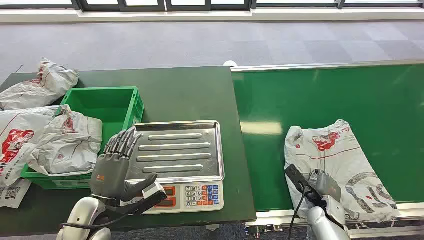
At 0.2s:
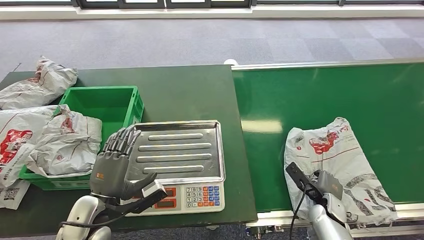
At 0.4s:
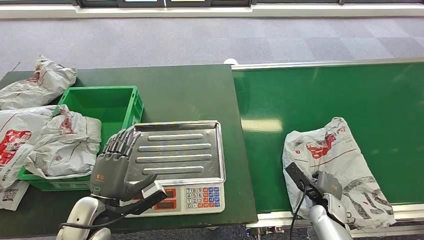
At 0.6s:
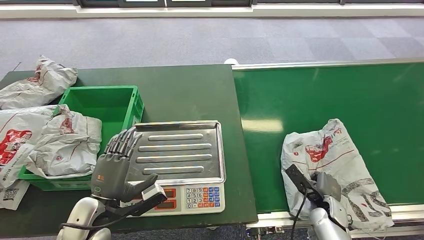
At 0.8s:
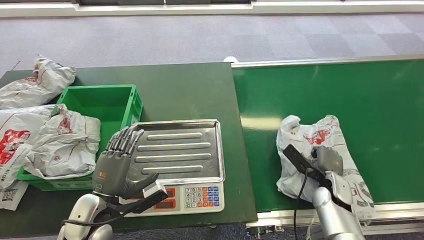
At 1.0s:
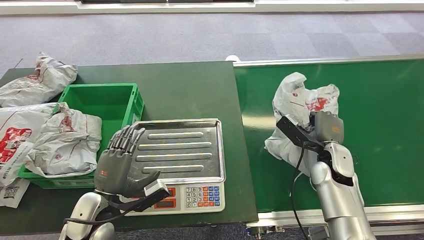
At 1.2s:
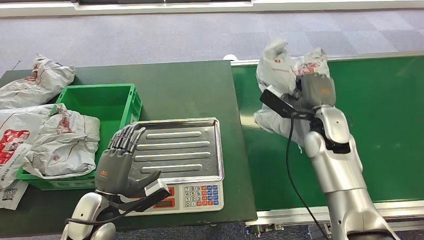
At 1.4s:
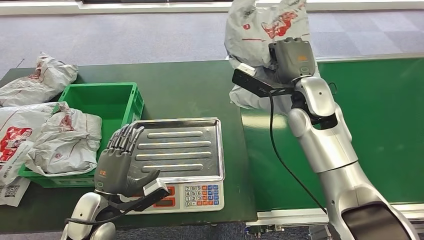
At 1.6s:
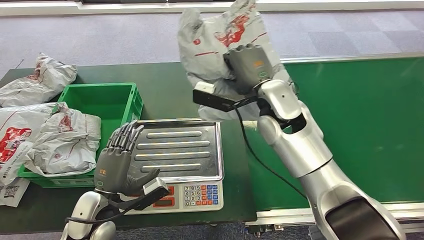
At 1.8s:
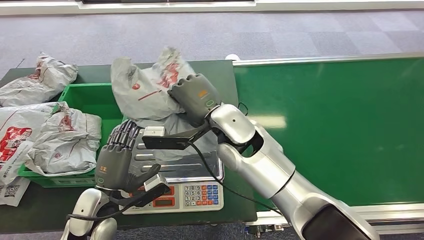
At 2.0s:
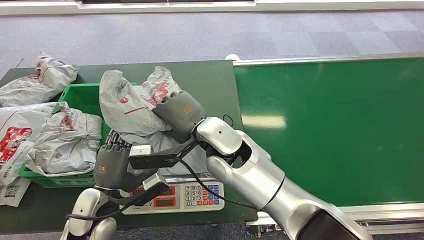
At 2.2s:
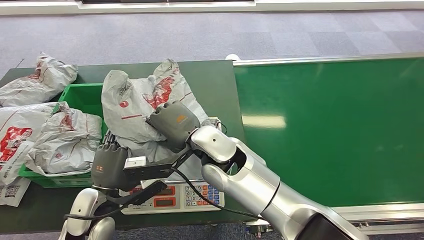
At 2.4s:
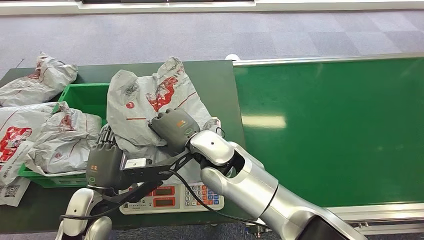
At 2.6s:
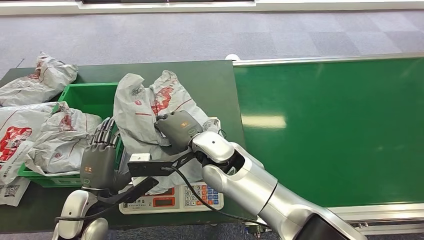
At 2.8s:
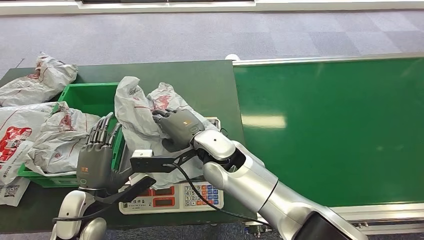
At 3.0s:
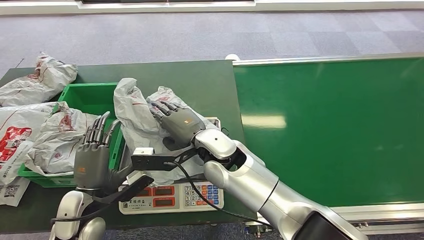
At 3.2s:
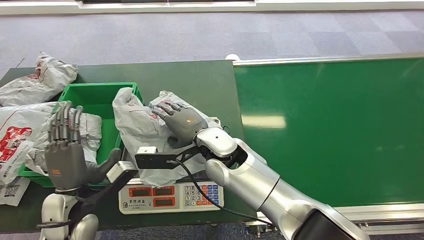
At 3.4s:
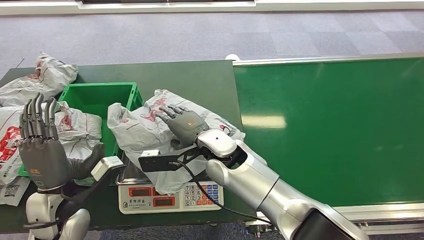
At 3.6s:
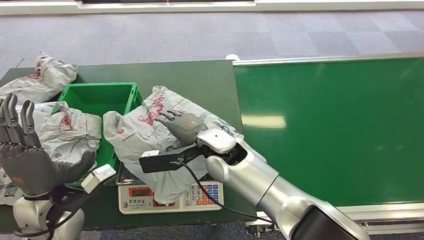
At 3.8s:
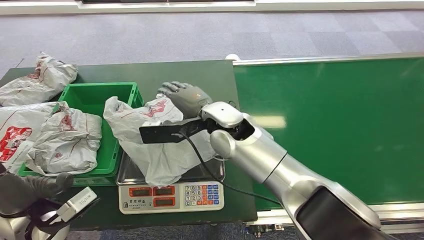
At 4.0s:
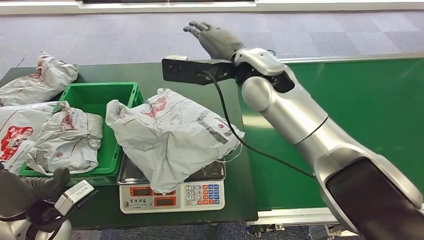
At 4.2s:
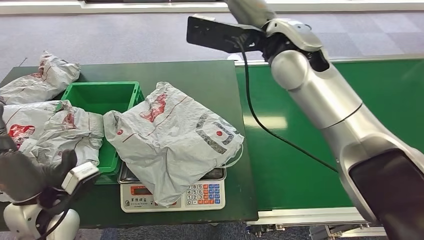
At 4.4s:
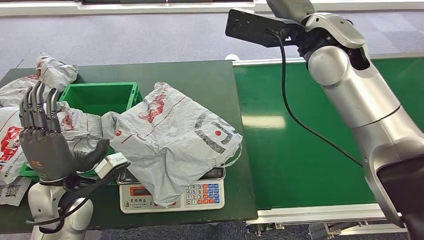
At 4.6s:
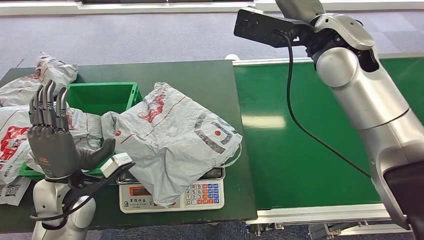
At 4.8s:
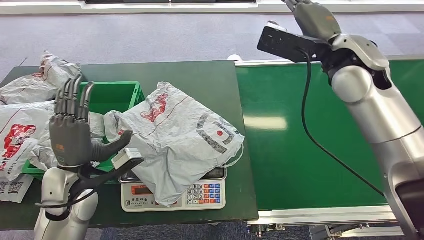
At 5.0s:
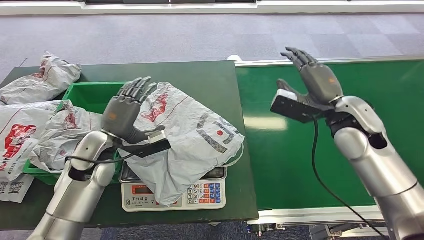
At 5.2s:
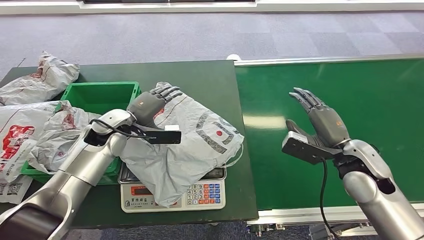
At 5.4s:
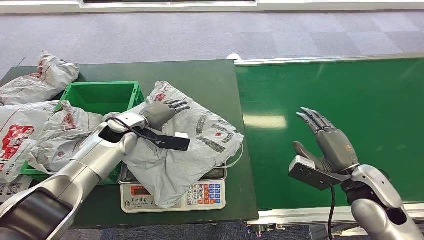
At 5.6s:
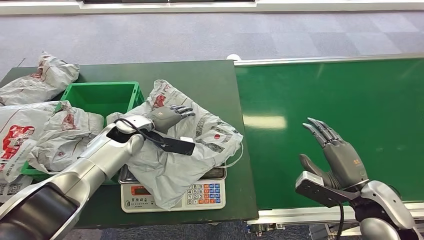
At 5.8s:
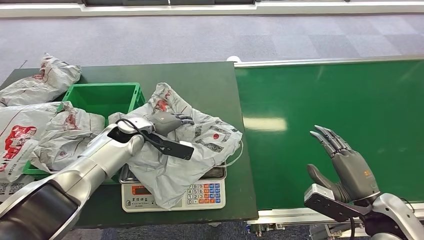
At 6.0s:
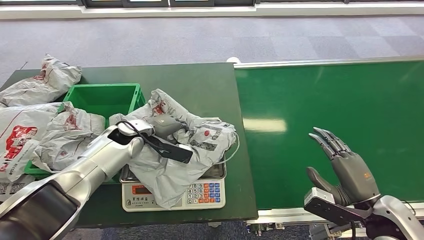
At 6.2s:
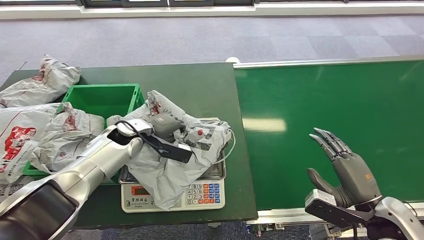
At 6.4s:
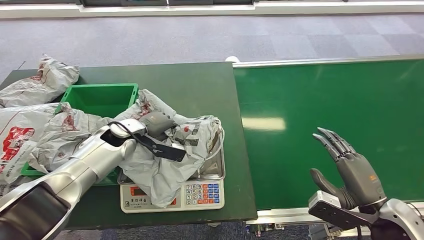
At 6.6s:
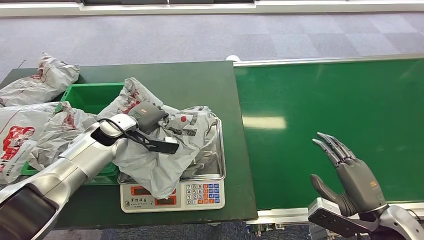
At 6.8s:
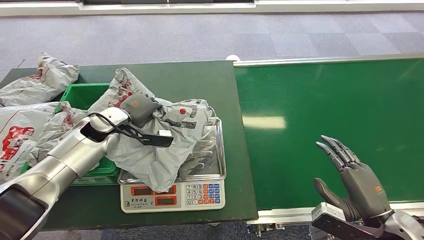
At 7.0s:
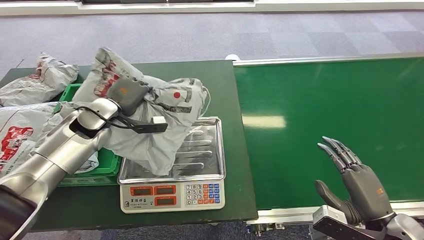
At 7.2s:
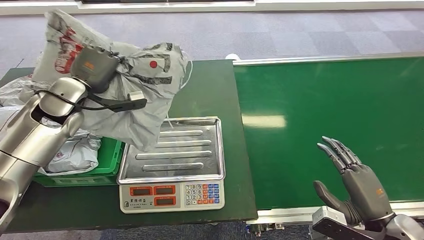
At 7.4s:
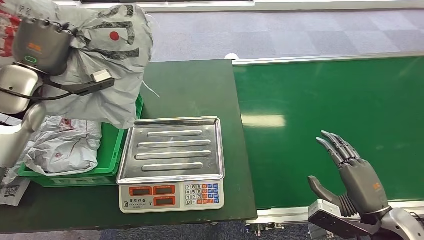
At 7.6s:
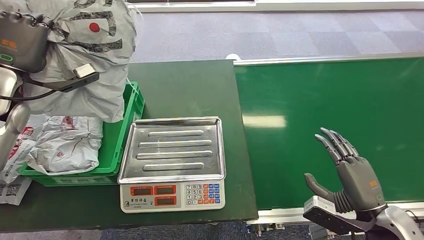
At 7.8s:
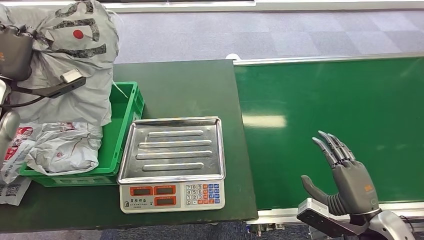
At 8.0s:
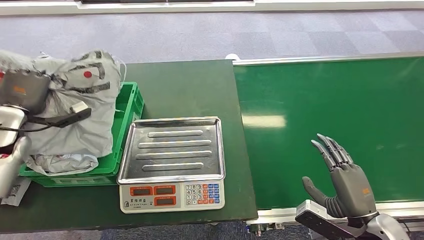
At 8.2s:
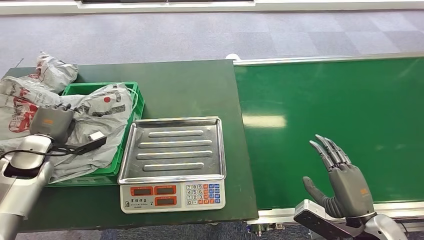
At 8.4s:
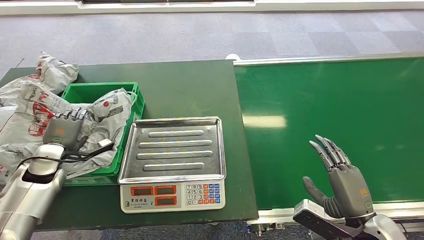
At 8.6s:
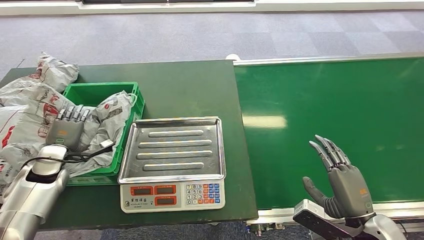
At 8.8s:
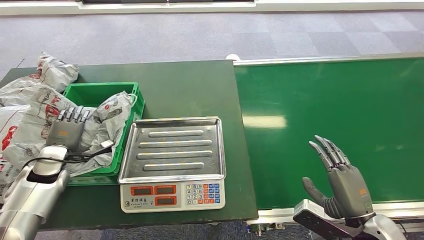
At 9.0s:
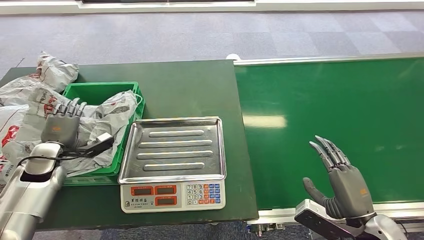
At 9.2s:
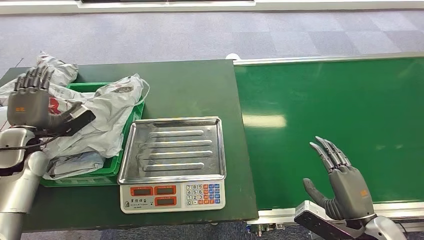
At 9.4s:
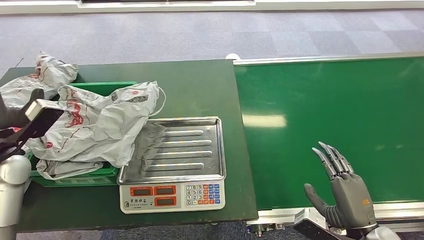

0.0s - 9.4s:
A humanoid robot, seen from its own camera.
Step, 0.0s - 1.4s: Pick up the package from the conveyor belt.
Step, 1.6s - 4.4s: Place the package onto the inbound machine.
Step, 4.6s - 7.2s: Pick up the package from the inbound machine.
Step, 7.4s - 9.4s: Place the package into the parcel locker.
